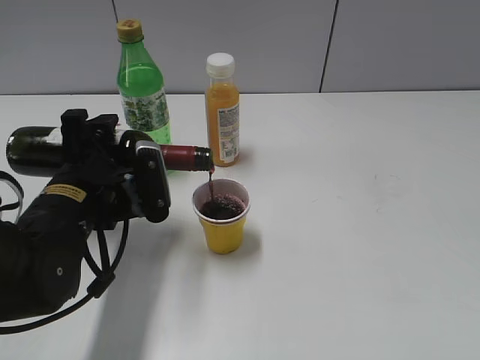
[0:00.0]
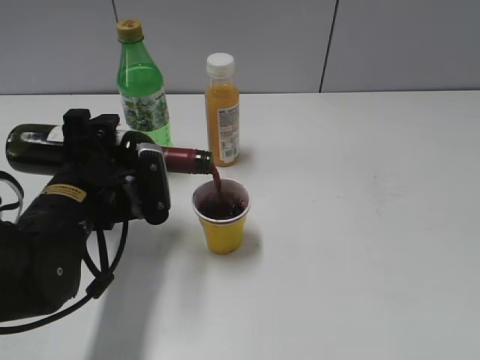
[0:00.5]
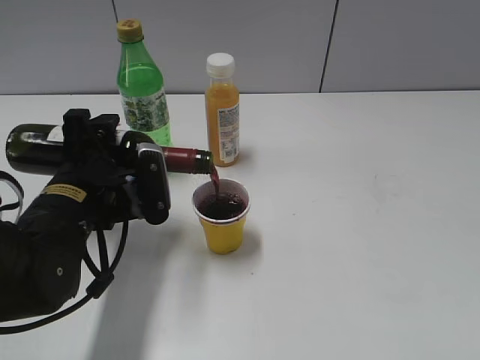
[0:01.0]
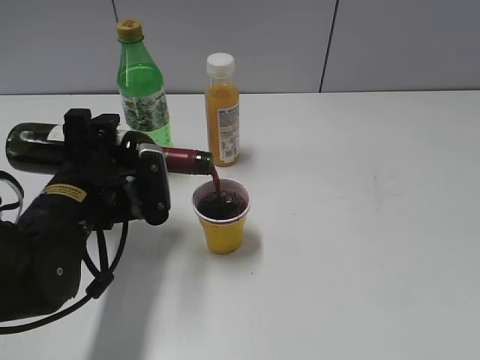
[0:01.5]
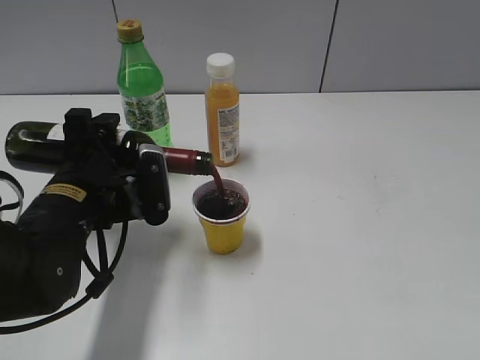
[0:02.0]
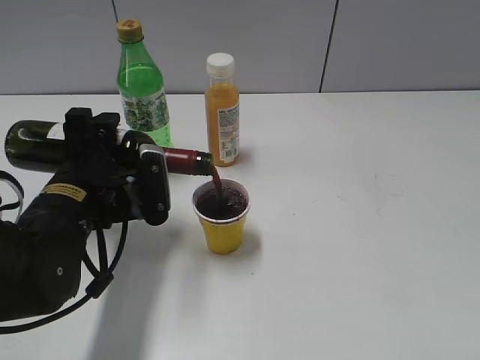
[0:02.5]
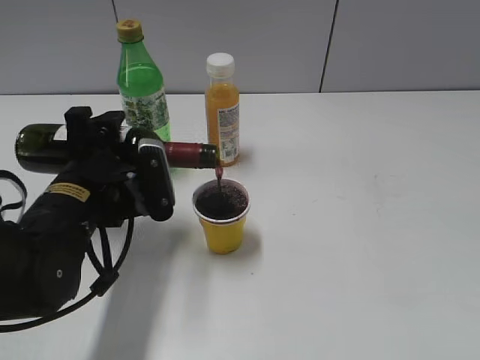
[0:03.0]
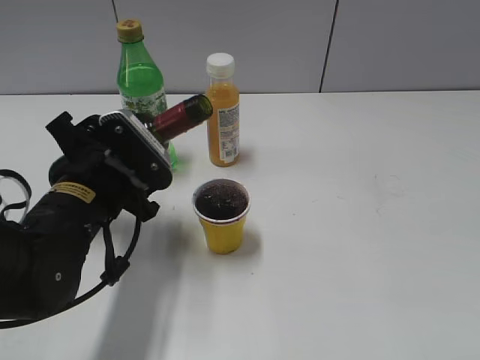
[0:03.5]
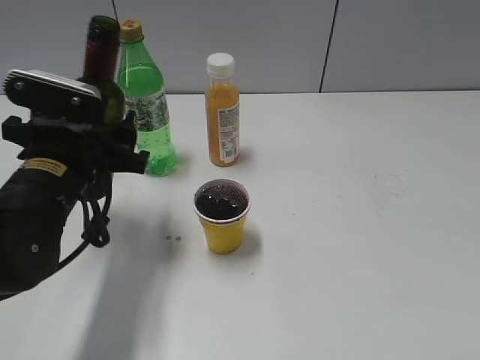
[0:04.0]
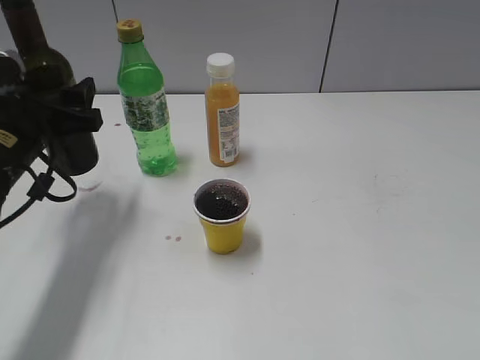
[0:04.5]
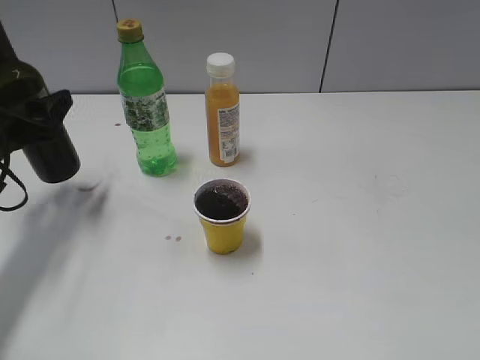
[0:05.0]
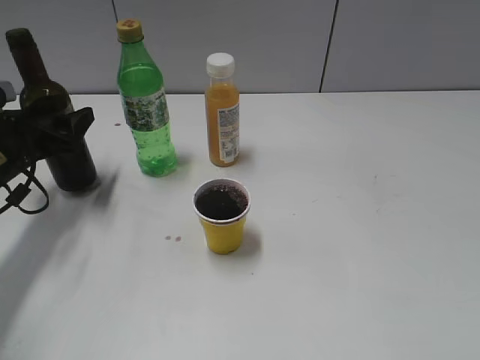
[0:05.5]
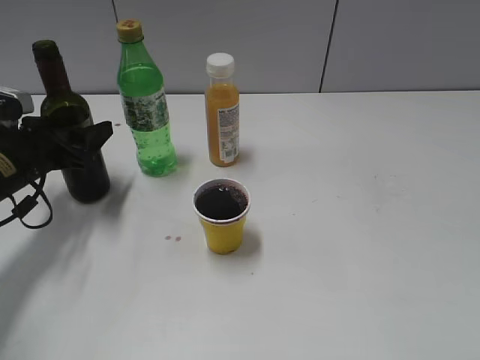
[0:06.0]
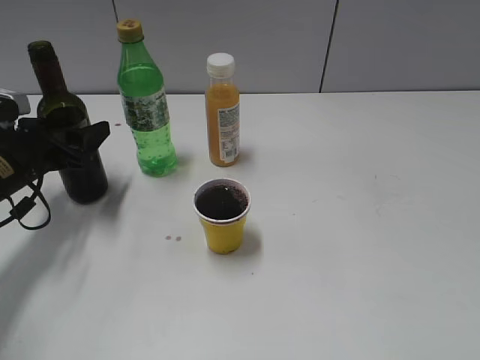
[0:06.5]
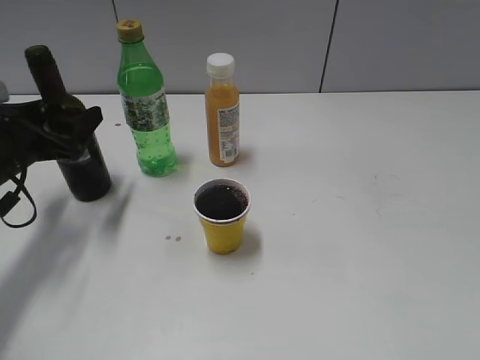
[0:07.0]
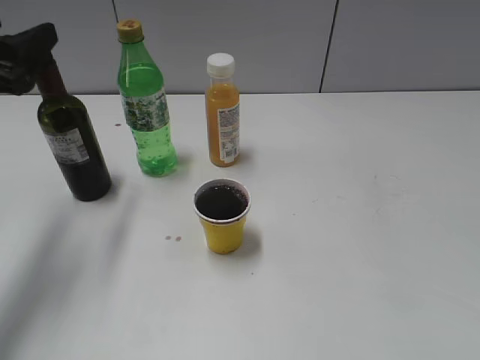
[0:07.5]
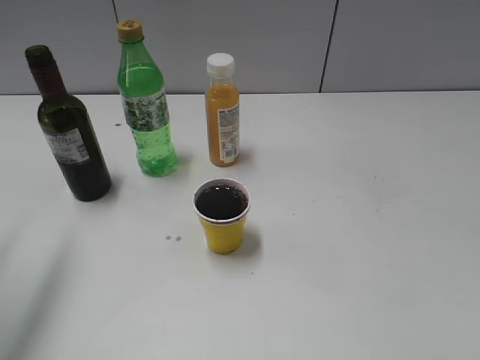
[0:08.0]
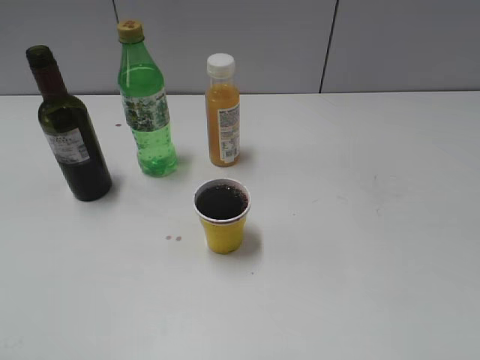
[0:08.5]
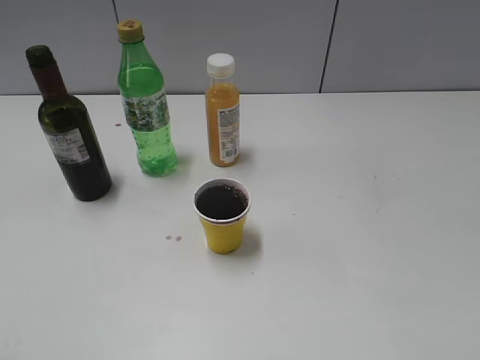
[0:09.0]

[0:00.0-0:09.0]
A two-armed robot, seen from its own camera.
Step, 0:00.0 to 0:03.5: Pour the red wine from bottle to cup with left gripper.
Step, 0:04.0 to 0:07.0: Place the red wine bottle on the table with left gripper.
0:00.0 to 0:02.0: Neither gripper changes place.
0:02.0 to 0:04.5: The left gripper is displaced to the left by approximately 5 cm.
0:04.5 to 0:07.0: The left gripper ends up approximately 5 cm from where it was, and opens.
0:07.0 to 0:09.0: The left gripper travels backward and upward by some 35 cm, and closes its fingers.

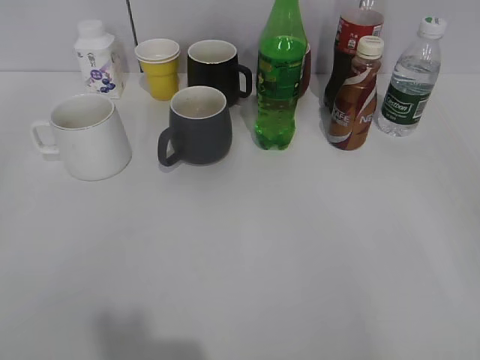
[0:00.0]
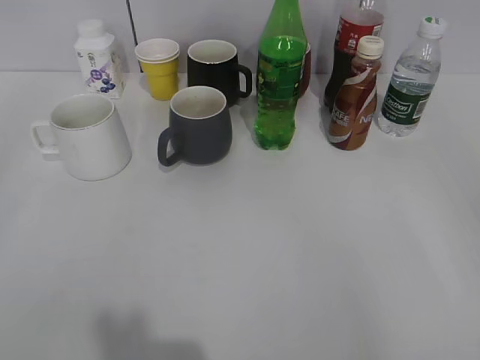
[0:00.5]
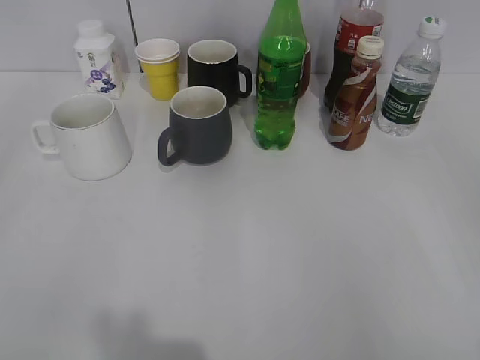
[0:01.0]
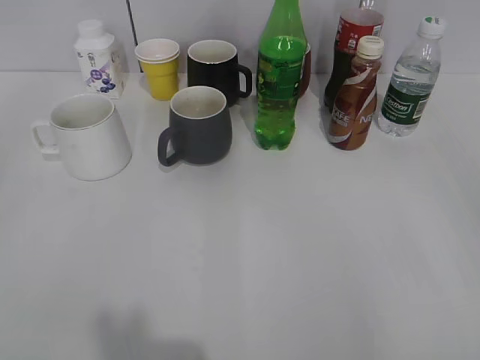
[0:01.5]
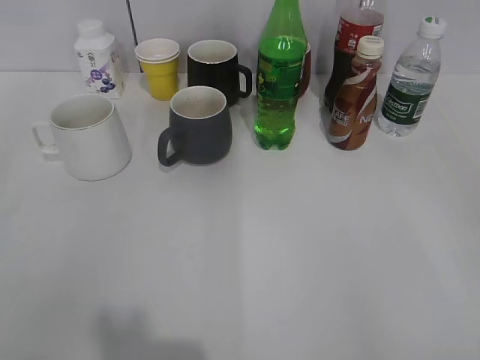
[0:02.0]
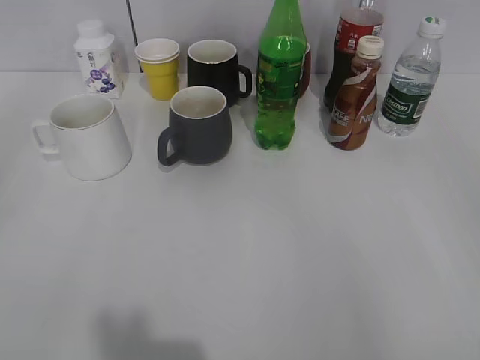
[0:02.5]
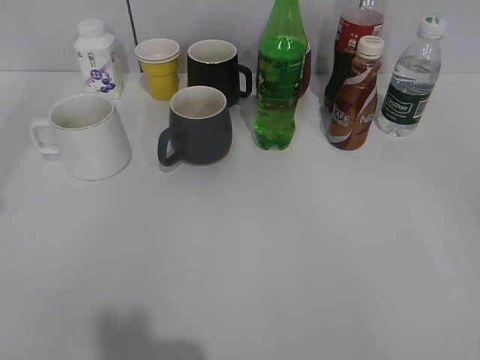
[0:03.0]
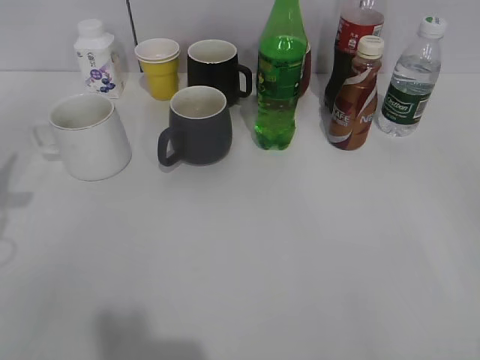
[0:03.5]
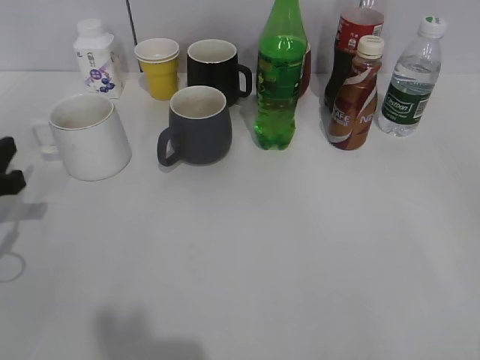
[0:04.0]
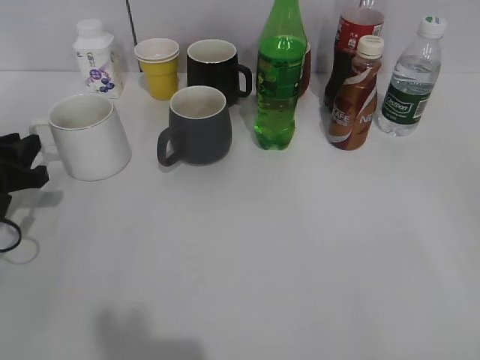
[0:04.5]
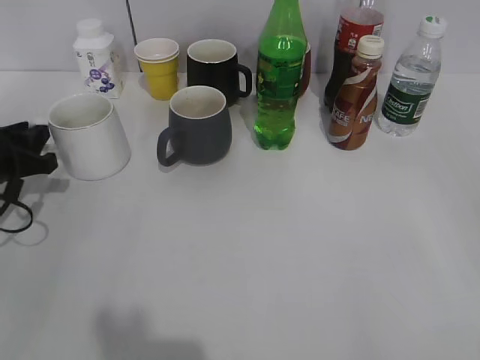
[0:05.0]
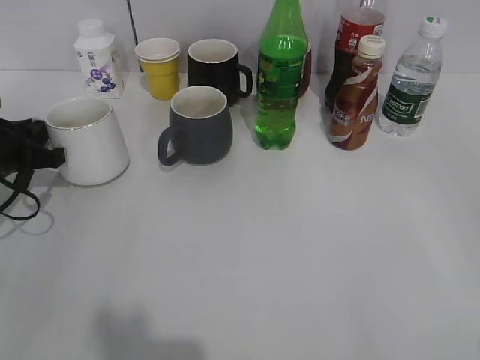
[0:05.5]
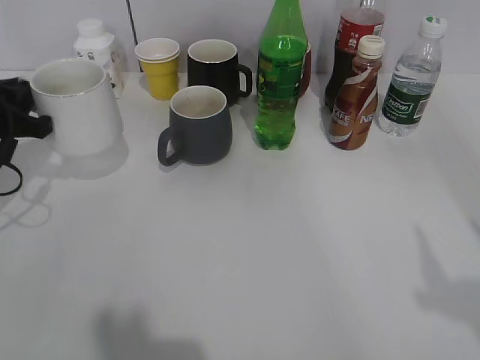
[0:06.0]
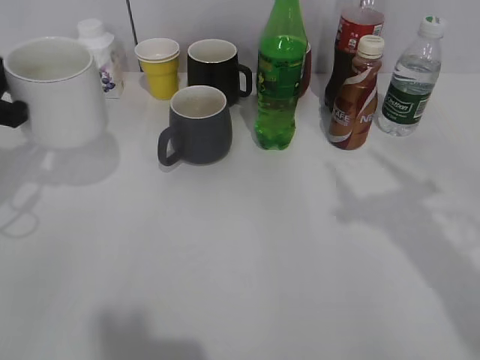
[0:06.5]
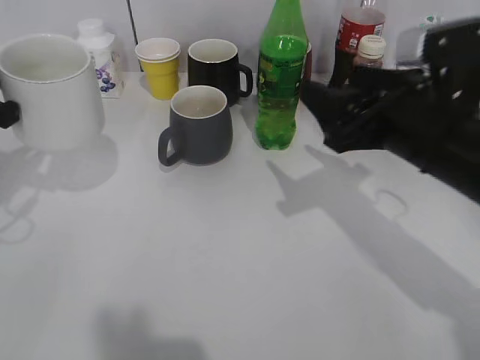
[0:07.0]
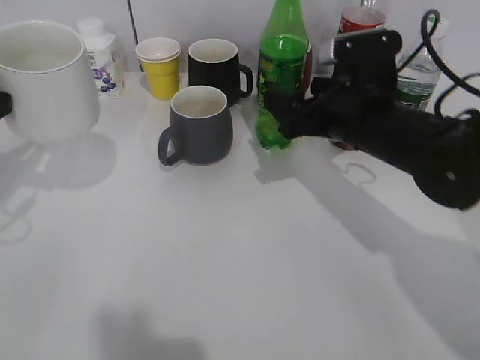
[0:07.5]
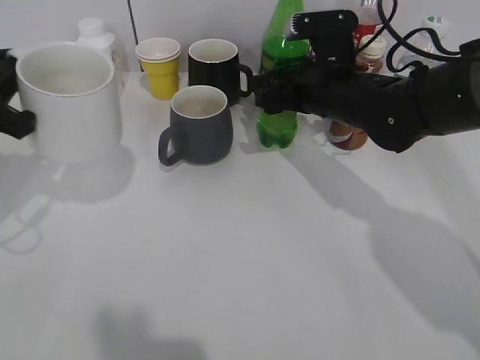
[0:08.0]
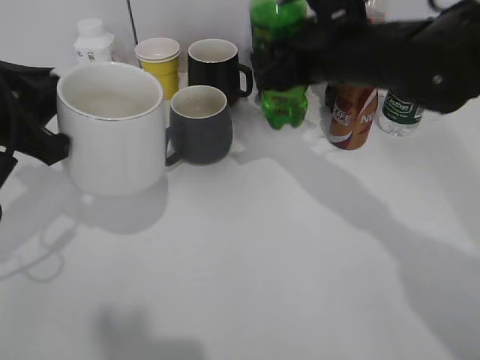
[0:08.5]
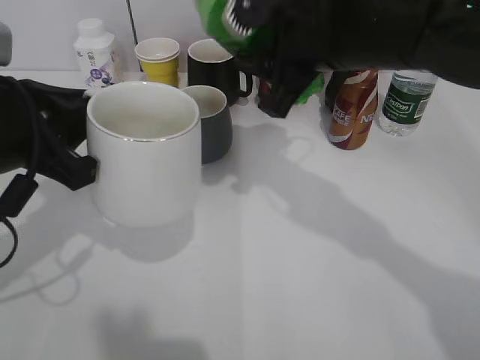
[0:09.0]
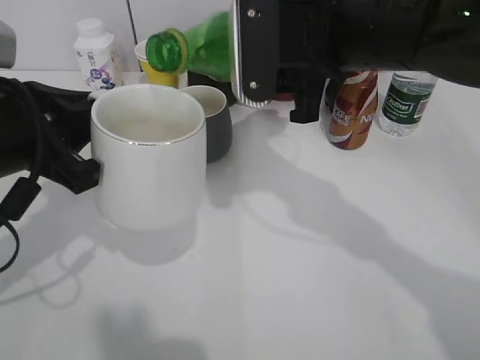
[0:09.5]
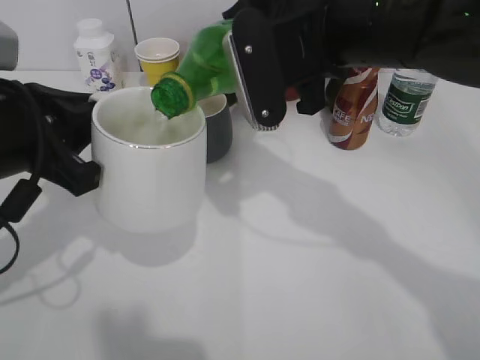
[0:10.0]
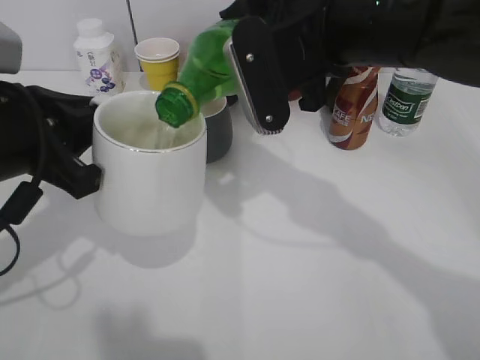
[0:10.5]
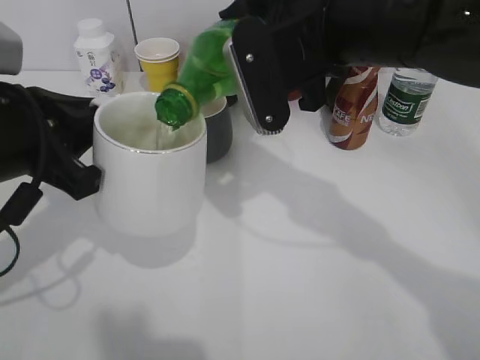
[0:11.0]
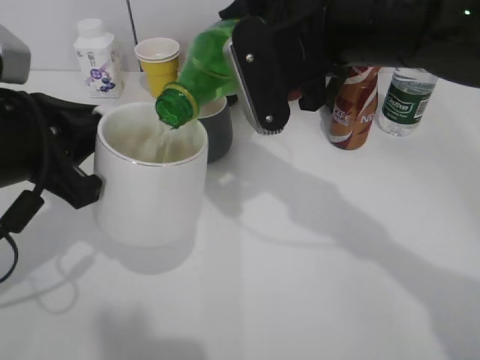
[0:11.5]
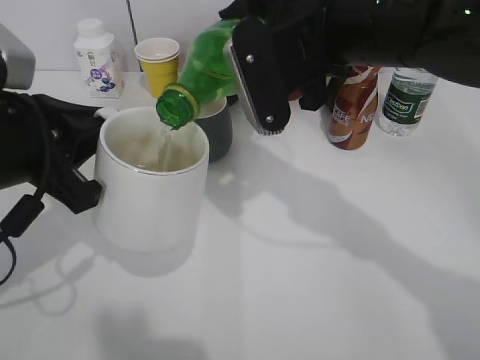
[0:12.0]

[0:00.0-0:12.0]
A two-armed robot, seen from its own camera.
Step, 0:02.5 to 0:05.5: Grasp the white cup with left gripper.
Step, 0:07.0 to 0:08.0: Grasp the bottle with sprite with right gripper.
0:02.0 to 0:04.0: The left gripper moves forward and downward, approximately 30 cm.
0:04.0 to 0:06.0: The left gripper travels forward by approximately 5 cm, and closes up.
0:06.0 to 0:08.0: The right gripper travels forward, to the left and downward by about 40 cm. The left gripper is displaced upward and backward by roughly 10 cm.
0:08.0 to 0:10.0: The left gripper moves to the right and backward, approximately 10 cm, while the right gripper heads upward and backward, covering about 15 cm, and closes.
0:10.0 to 0:12.0: The grippers stay close to where they were, moving slightly.

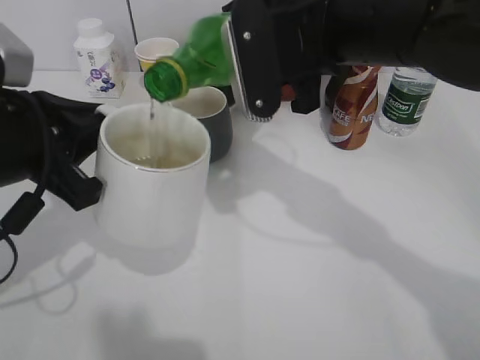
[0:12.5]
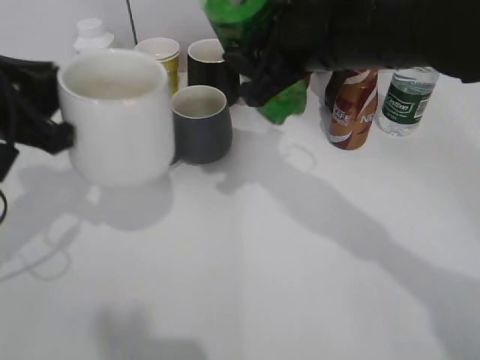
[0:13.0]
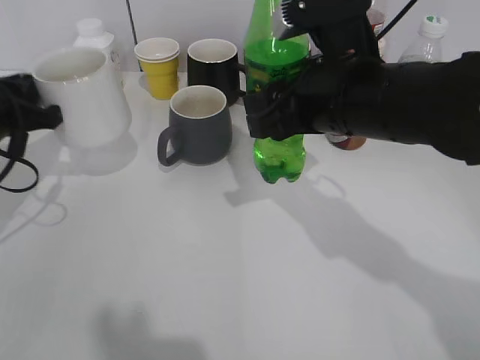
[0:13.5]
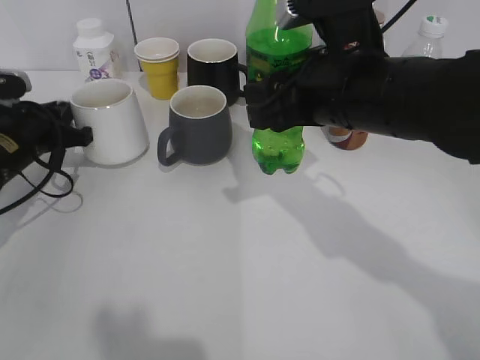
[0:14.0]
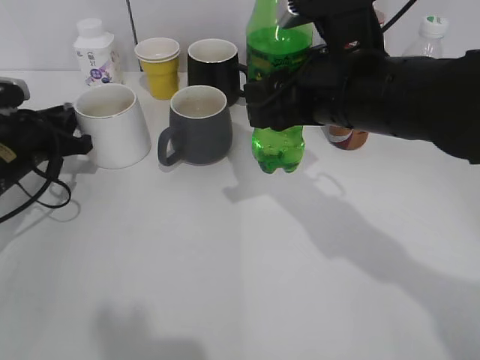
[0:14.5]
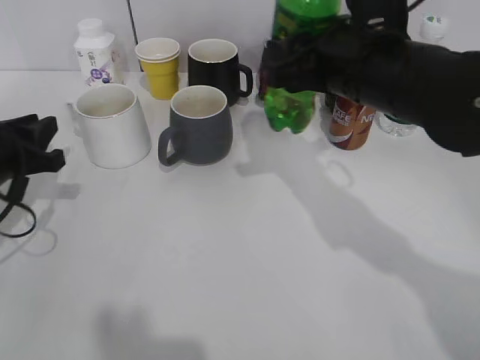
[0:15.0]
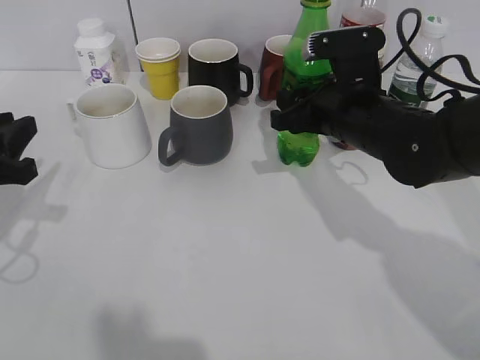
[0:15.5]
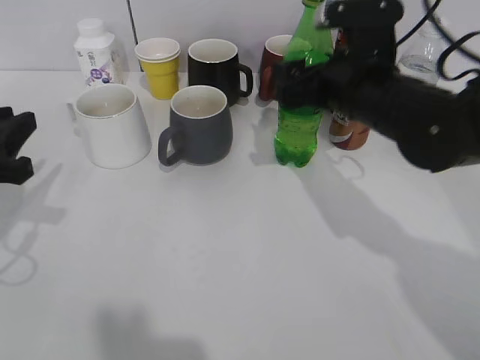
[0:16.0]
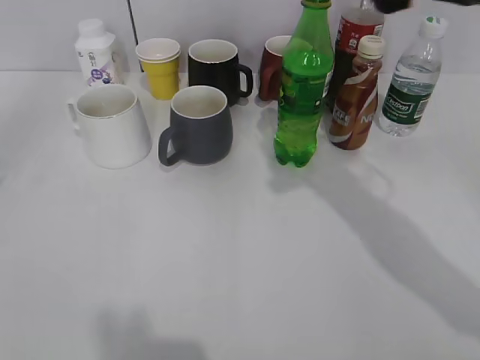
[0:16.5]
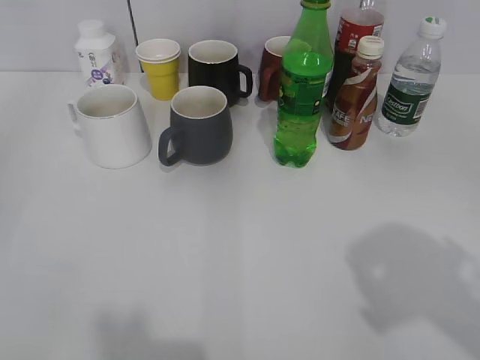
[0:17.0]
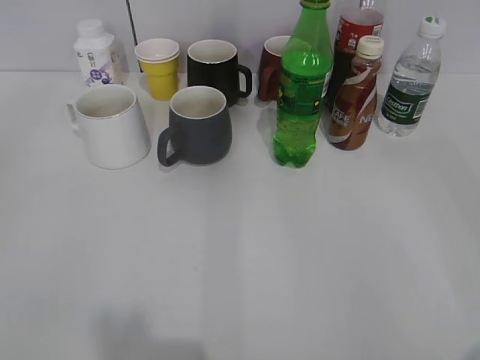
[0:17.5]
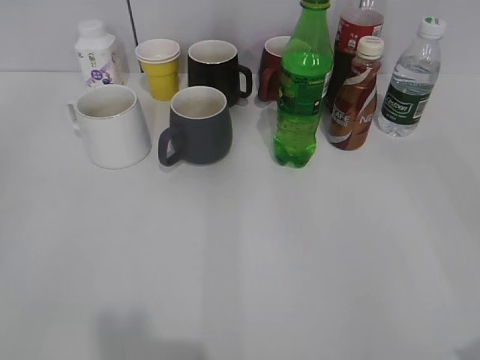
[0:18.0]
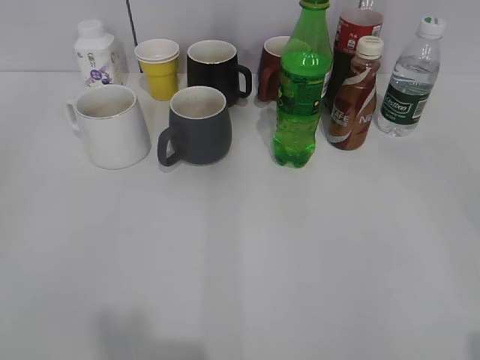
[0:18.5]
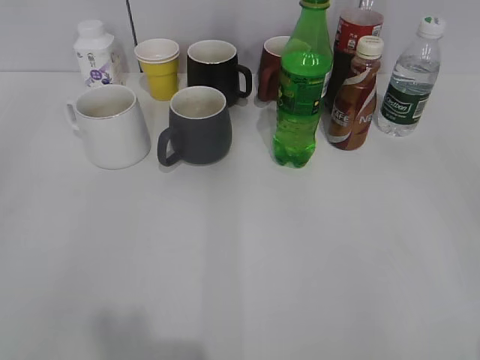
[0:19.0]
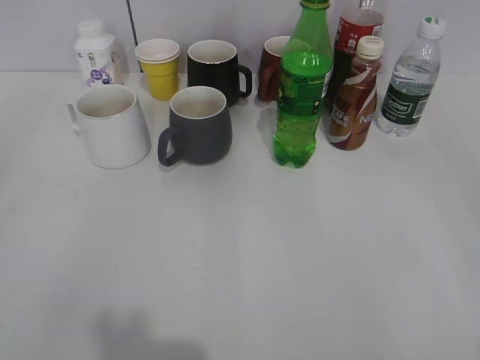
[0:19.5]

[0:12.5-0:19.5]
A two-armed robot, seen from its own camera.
Step, 0:13.0 to 0:14.5: Place the white cup on the table with left gripper.
Step, 0:15.0 to 0:15.5: Place the sprite bottle on the table with right gripper.
0:12.5 to 0:14.5: The right gripper ends up roughly 5 cm from where it was. The left gripper moves forward, downward and to the left, some 20 cm, and opens its fingers.
0:14.5 to 0:16.0: The right gripper is displaced forward by some 5 cm, and opens up. The left gripper travels backward and upward by about 15 cm.
0:16.0 to 0:17.5: The left gripper goes some 25 cm backward, and opens its fingers; the right gripper moves backward and to the right, roughly 35 cm.
